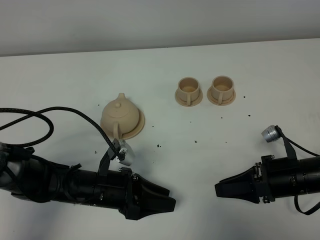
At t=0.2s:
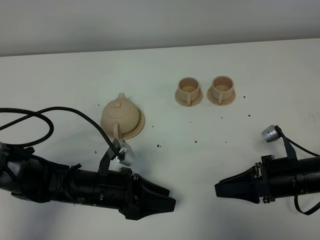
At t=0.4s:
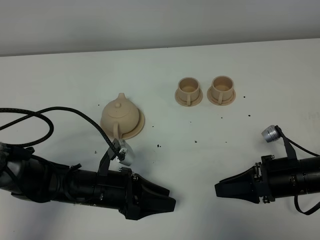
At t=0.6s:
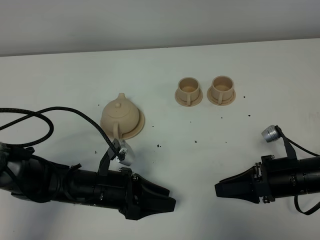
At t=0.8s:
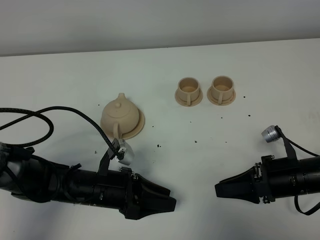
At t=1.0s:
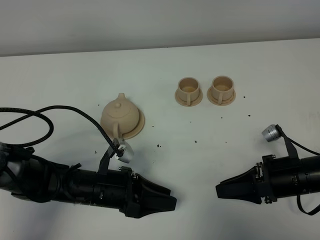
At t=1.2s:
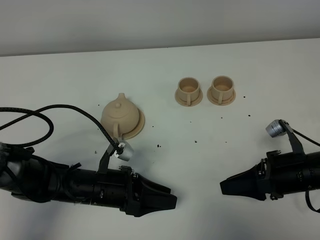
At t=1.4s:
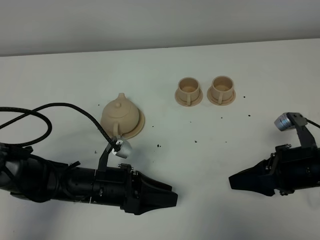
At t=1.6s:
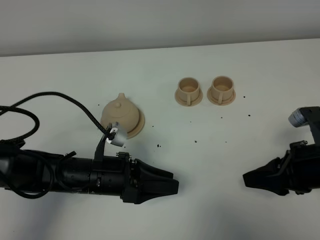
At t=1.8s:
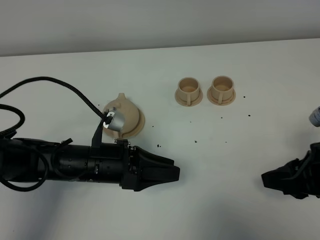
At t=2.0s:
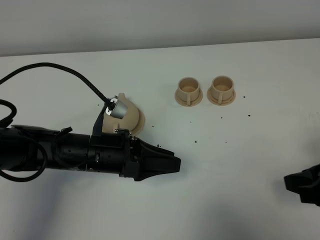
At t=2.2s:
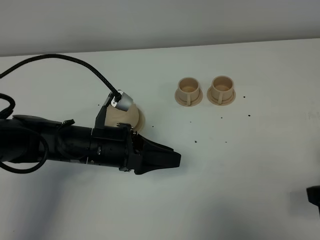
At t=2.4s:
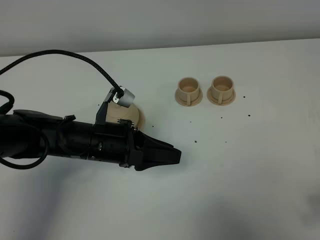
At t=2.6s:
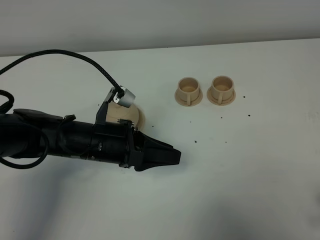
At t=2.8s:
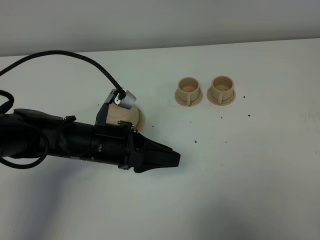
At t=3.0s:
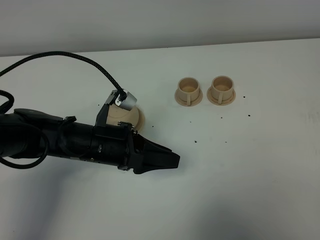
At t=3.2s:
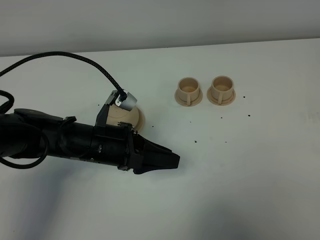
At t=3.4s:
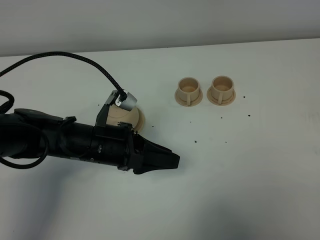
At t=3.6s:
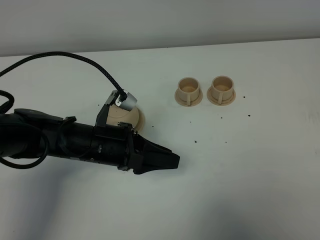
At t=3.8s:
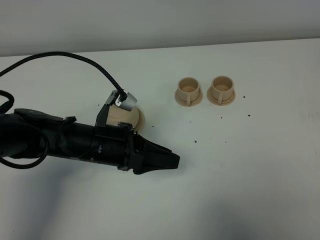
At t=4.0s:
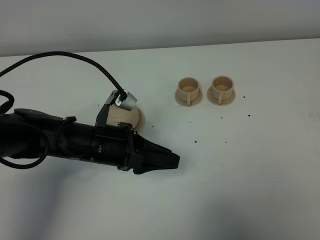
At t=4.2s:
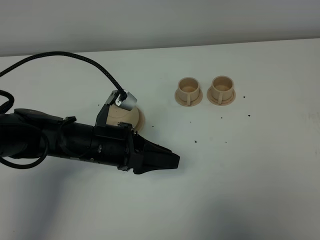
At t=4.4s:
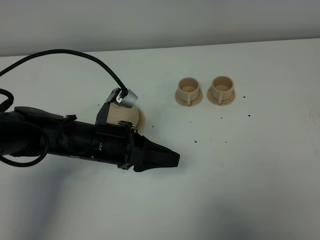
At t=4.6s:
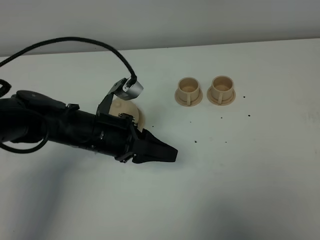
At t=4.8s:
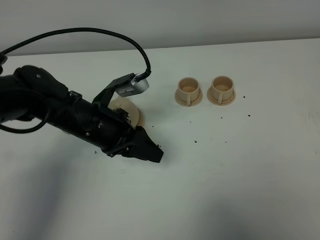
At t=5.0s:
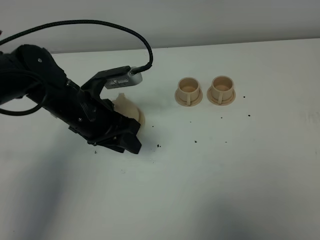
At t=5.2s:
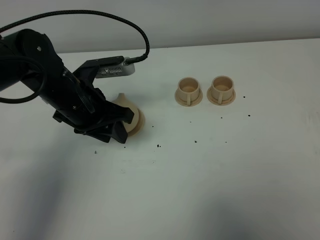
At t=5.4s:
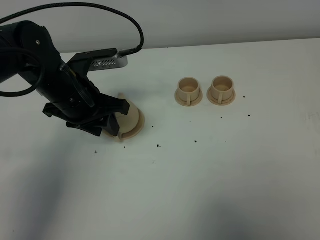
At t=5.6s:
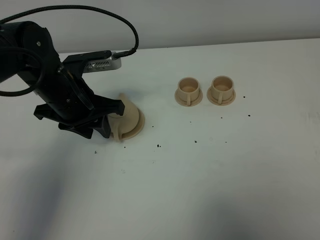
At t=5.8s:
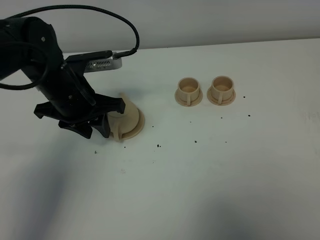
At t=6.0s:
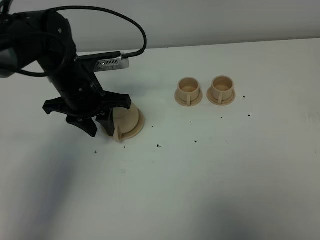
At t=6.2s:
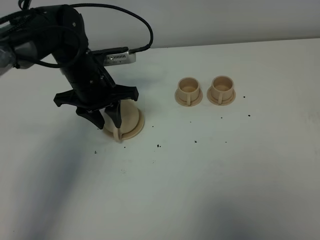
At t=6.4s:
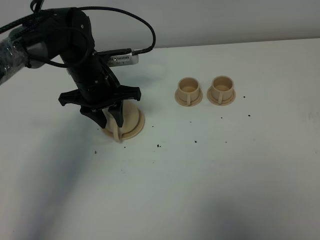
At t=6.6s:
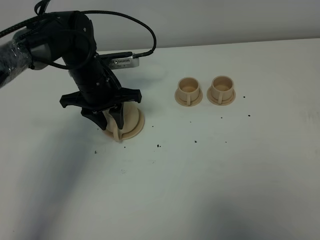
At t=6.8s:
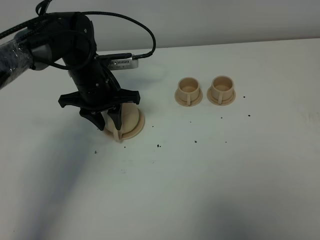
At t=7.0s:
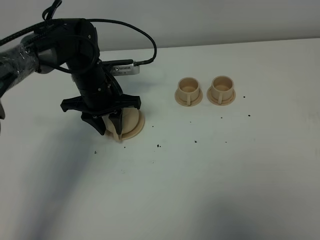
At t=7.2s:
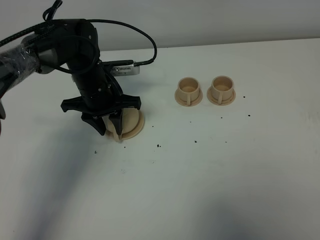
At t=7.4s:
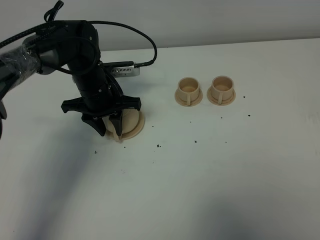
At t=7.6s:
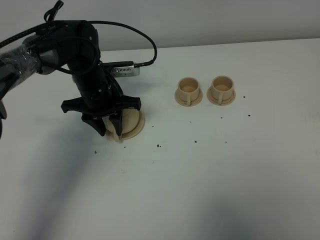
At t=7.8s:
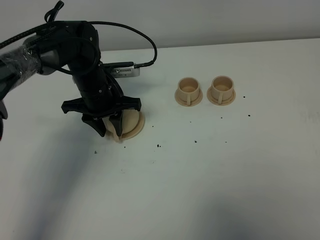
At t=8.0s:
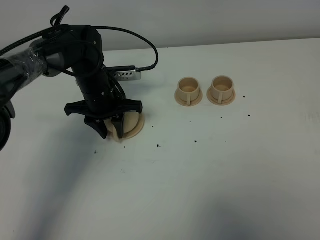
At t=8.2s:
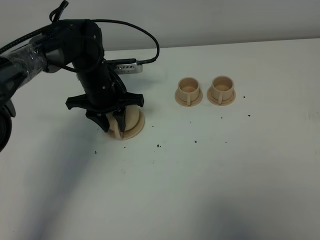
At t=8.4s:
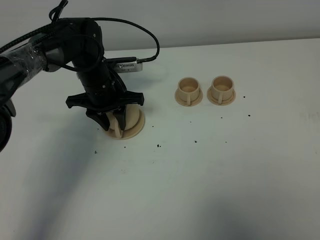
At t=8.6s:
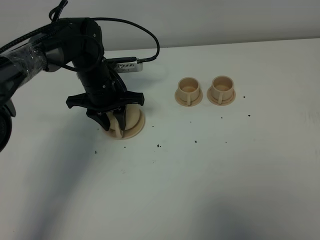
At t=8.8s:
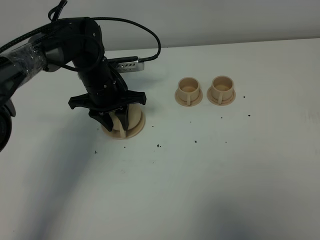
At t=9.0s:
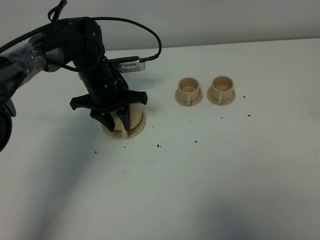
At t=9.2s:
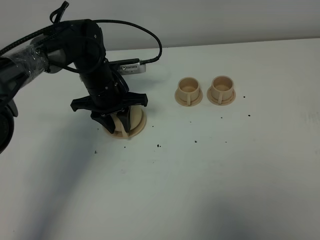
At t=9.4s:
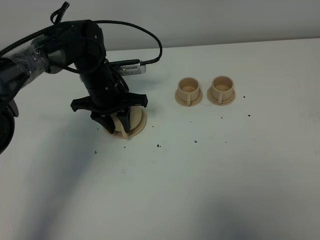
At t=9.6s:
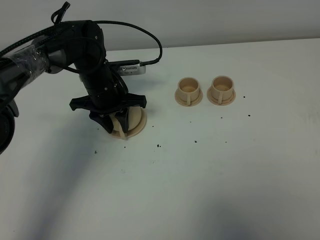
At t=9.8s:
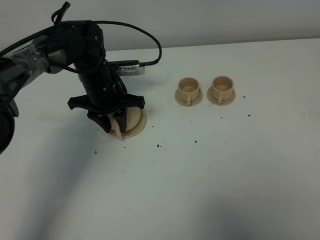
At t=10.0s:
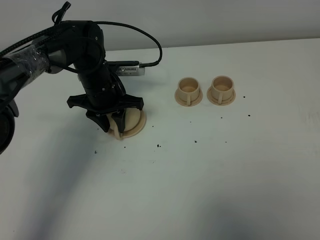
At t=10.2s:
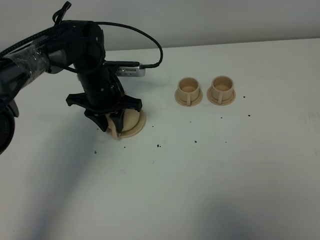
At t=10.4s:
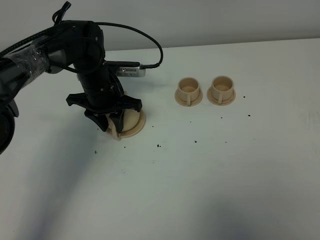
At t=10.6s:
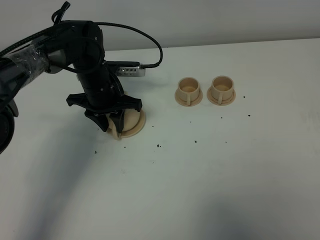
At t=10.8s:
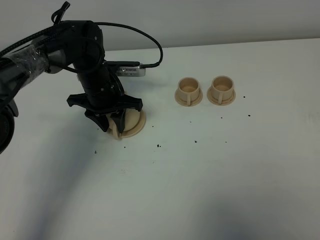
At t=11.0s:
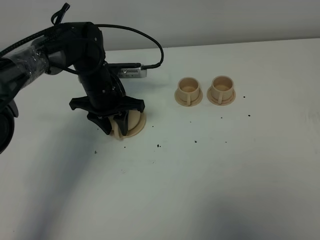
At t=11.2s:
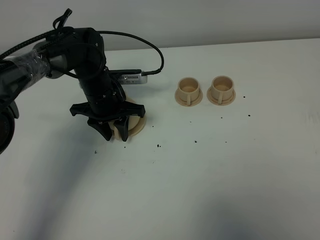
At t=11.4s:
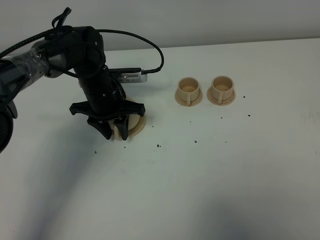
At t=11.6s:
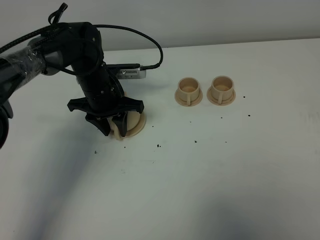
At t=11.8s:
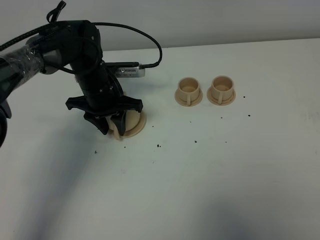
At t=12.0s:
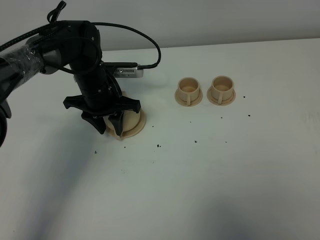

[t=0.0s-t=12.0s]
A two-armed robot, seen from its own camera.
Task of the whole recording: grasp the brown teapot and pour the tea into the two brown teacups one by one, put the brown teapot back in its original place.
t=0.0s to t=1.6s: The right gripper goes roughly 10 cm upward.
t=1.6s to t=3.0s: The left gripper changes place by some 5 cm. The right gripper shifts about 20 cm backward, to the right and upward.
t=3.0s to t=4.4s: The right gripper is displaced backward by some 5 cm.
t=4.4s to t=6.0s: The left gripper shifts some 10 cm forward.
t=6.0s to t=7.6s: The left gripper moves downward, roughly 5 cm.
t=7.6s to t=12.0s: The grippers move only a little.

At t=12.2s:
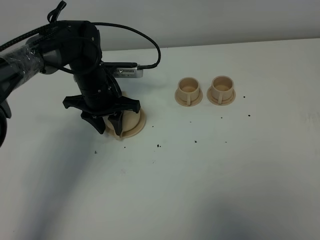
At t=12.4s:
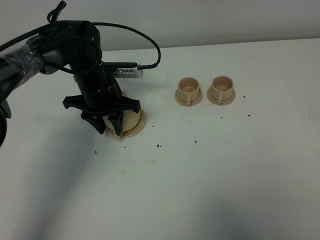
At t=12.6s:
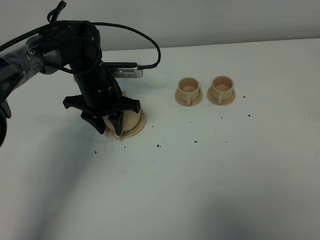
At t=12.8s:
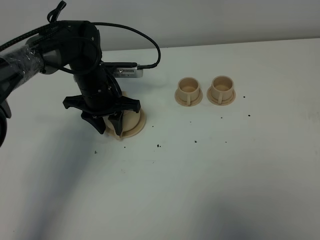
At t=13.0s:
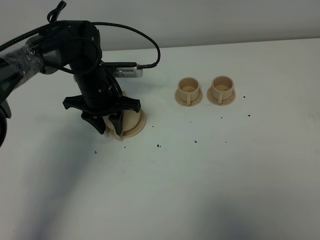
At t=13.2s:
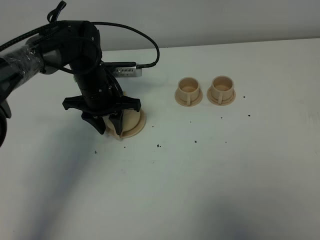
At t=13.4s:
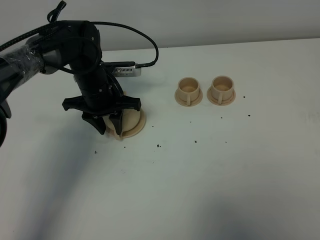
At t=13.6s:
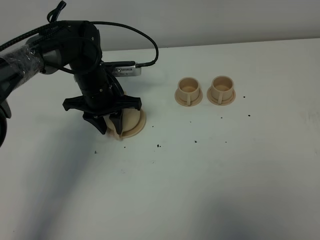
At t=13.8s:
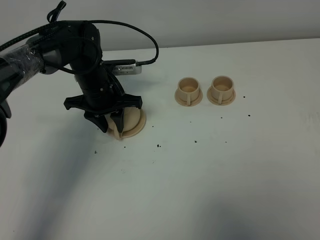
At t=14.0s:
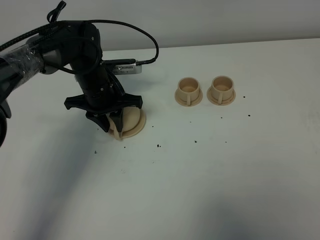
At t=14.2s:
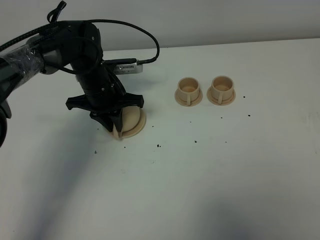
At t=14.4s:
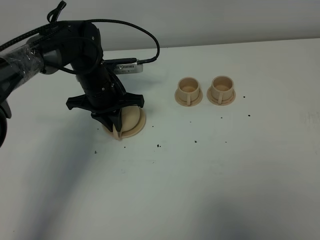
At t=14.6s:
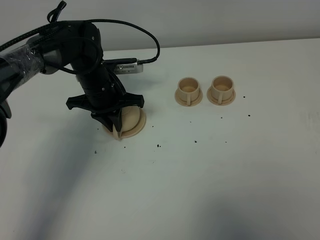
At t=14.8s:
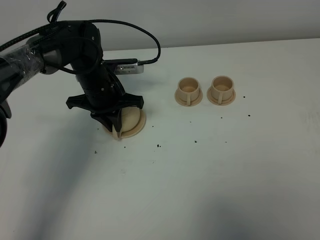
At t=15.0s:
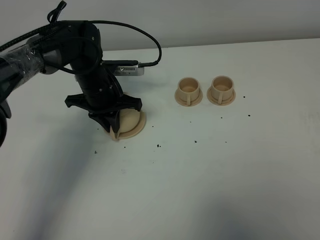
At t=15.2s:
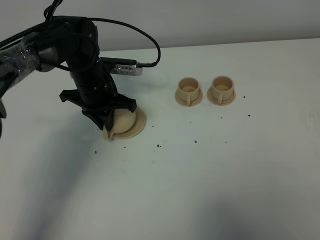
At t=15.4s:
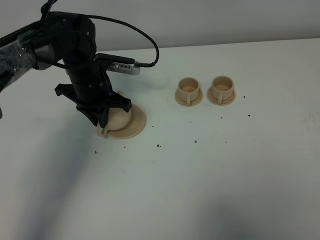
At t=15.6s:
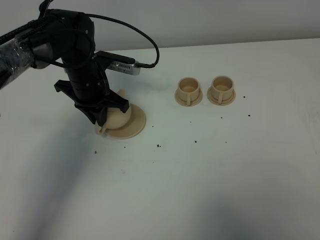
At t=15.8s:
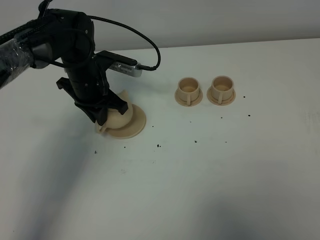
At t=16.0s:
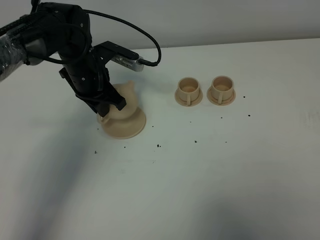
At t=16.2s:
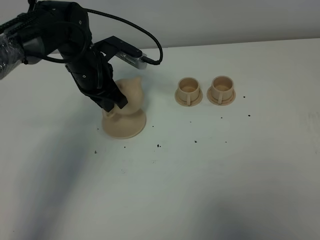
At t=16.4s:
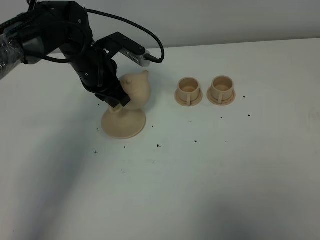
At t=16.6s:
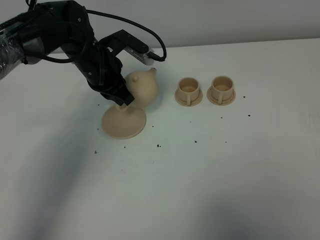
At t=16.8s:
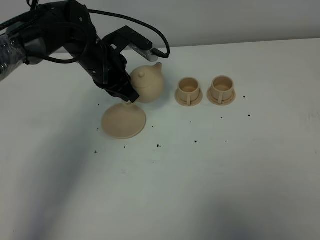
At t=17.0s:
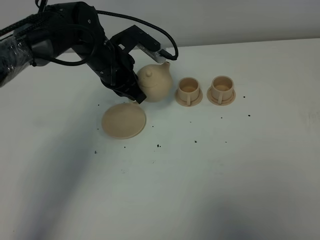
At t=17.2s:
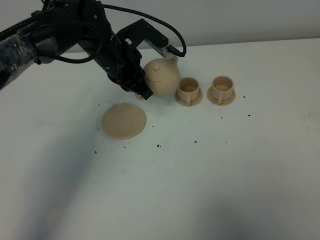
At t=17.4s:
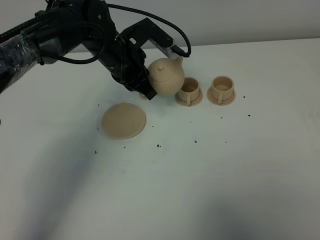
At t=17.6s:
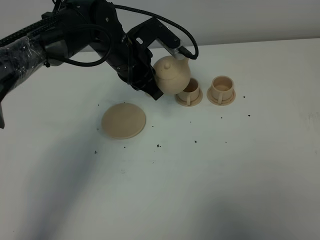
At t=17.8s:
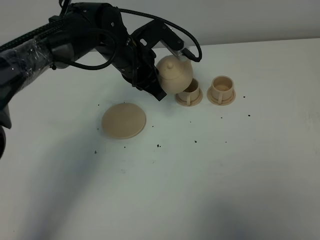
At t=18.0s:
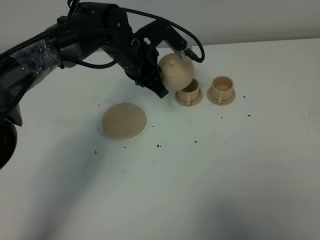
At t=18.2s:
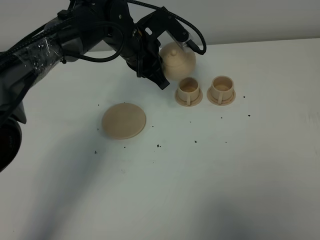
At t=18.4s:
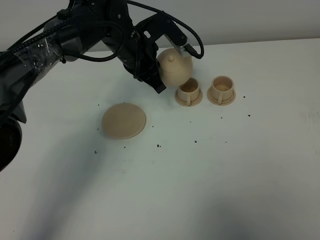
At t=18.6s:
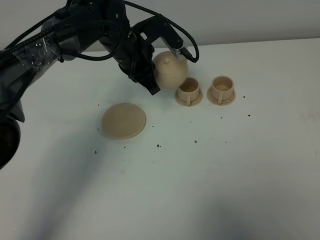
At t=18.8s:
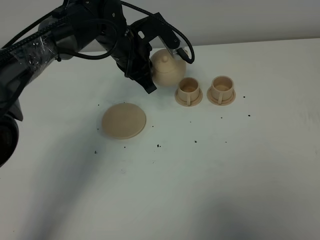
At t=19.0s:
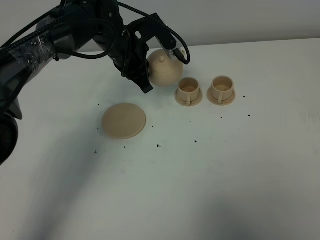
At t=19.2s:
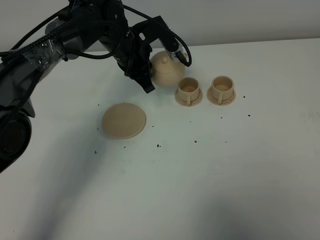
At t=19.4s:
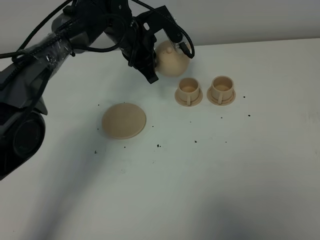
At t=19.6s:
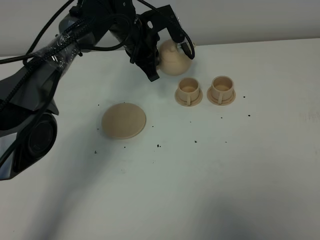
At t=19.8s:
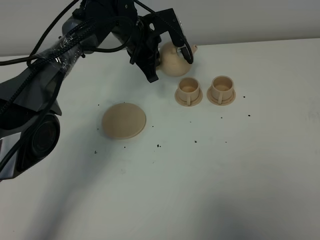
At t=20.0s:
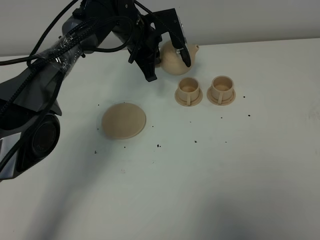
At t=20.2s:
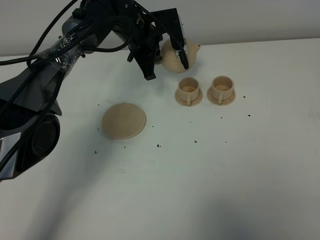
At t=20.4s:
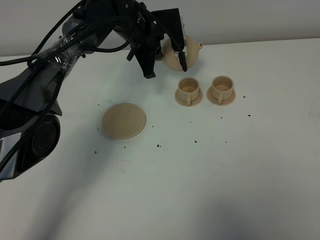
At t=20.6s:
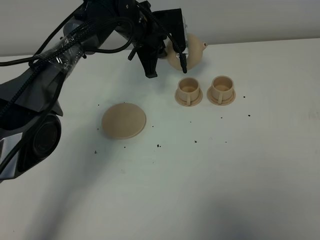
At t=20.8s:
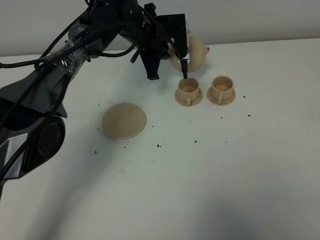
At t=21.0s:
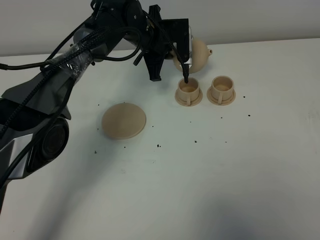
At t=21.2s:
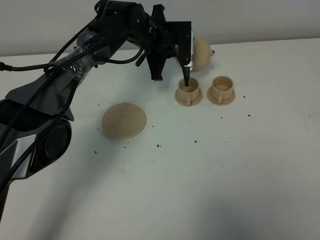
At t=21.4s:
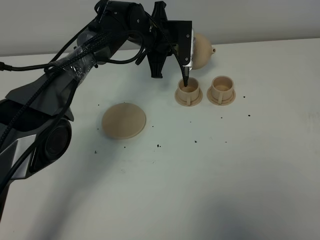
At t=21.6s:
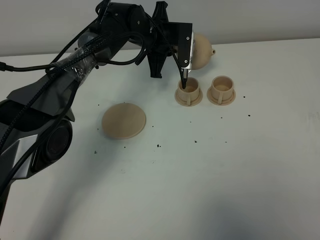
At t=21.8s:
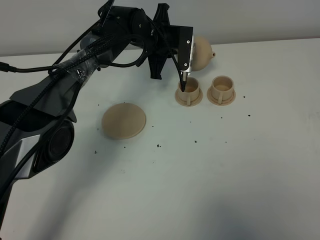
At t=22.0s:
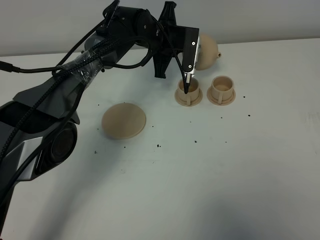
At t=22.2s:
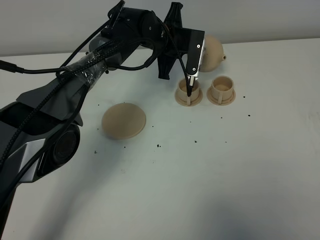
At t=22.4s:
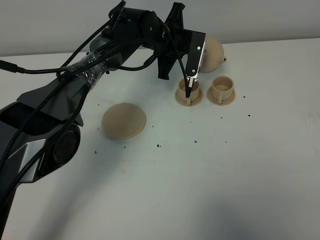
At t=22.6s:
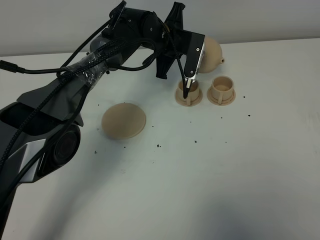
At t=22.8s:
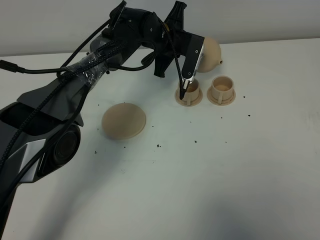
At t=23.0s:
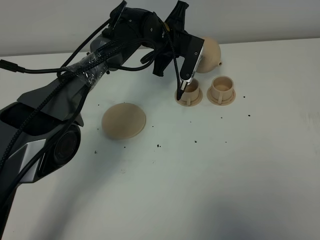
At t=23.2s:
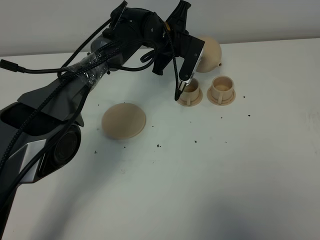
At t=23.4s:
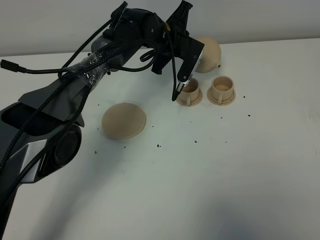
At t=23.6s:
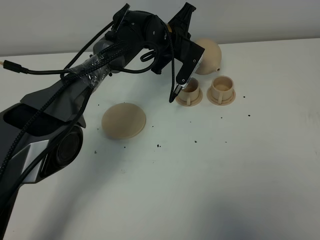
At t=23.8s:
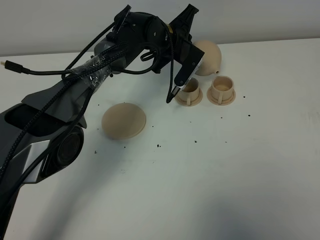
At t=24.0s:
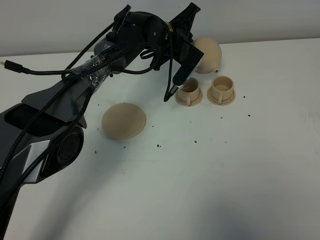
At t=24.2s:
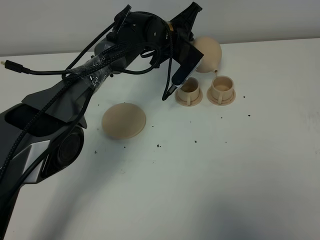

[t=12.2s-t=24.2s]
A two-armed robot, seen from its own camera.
Task of the whole recording: grasp the brown teapot and pour the tea into the two brown teacups one by one, put the brown teapot back in its original place.
Step, t=12.2s to t=15.4s: Pick up the teapot with the left gripper.
t=12.2s to t=13.8s: The grippers move only a little.
t=13.8s to t=15.2s: The left gripper closes.
t=16.6s to t=18.2s: The left gripper moves to the right, approximately 5 cm.
t=18.2s to t=19.8s: The left gripper goes some 5 cm forward.
t=21.2s to t=22.6s: The grippers make only small movements.
